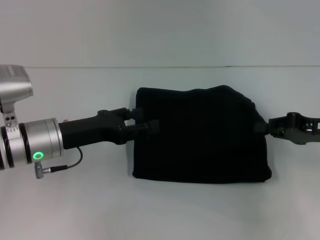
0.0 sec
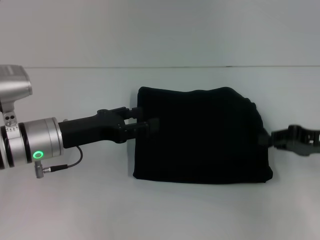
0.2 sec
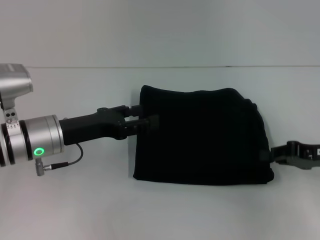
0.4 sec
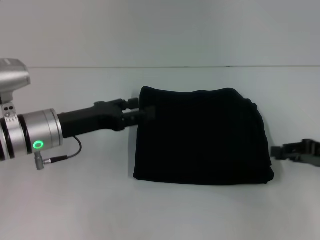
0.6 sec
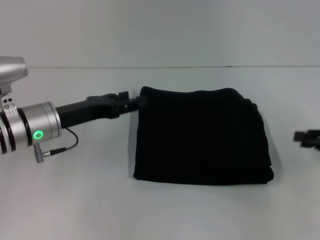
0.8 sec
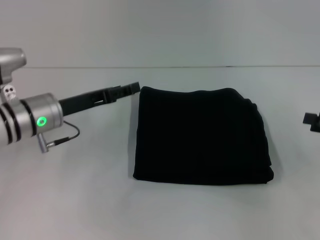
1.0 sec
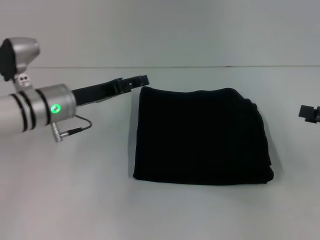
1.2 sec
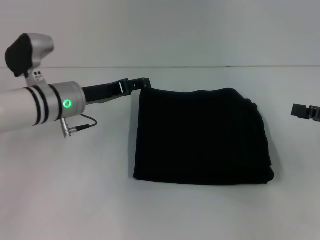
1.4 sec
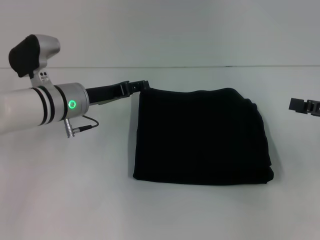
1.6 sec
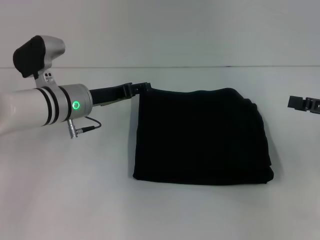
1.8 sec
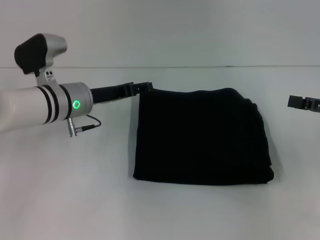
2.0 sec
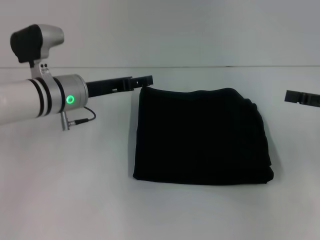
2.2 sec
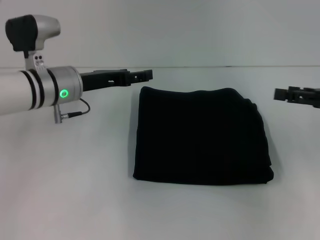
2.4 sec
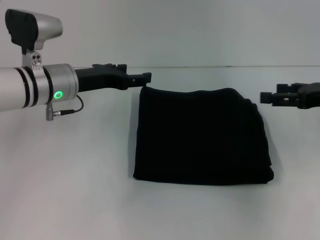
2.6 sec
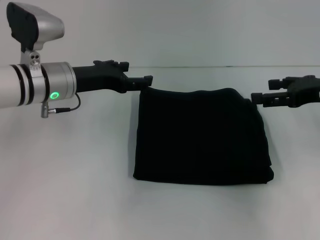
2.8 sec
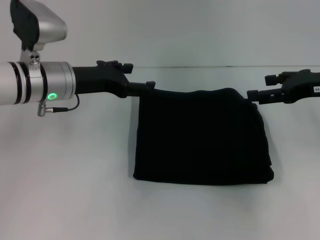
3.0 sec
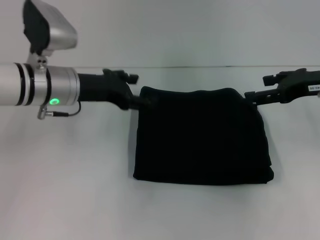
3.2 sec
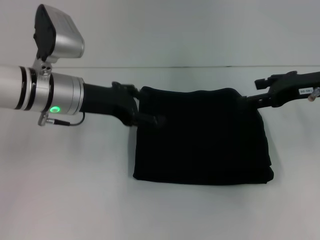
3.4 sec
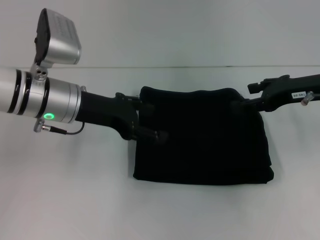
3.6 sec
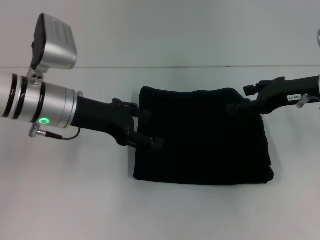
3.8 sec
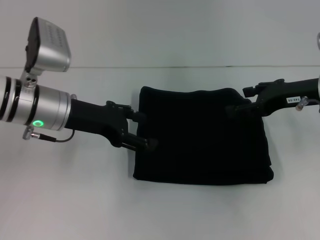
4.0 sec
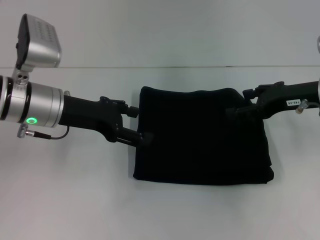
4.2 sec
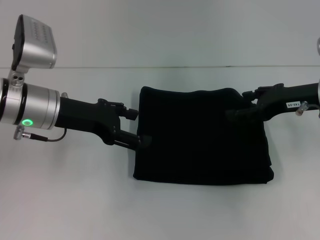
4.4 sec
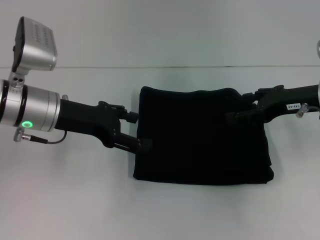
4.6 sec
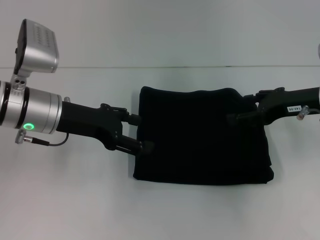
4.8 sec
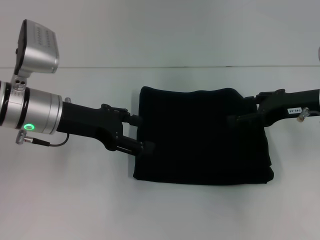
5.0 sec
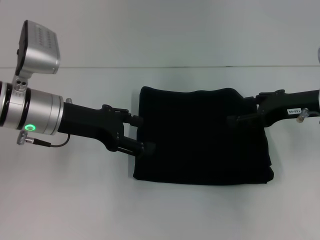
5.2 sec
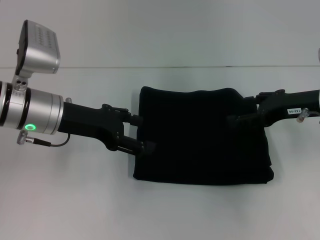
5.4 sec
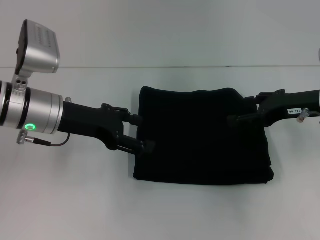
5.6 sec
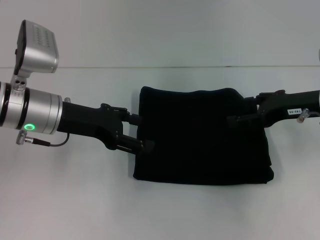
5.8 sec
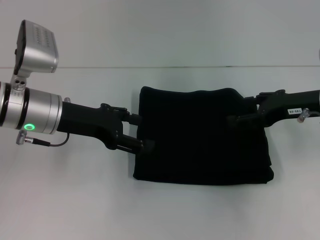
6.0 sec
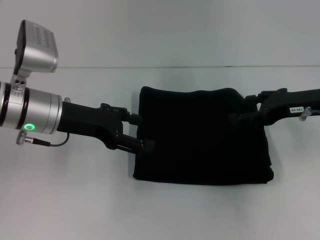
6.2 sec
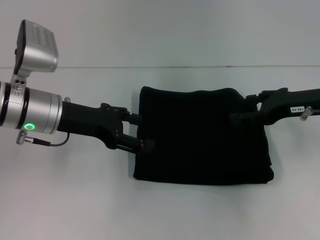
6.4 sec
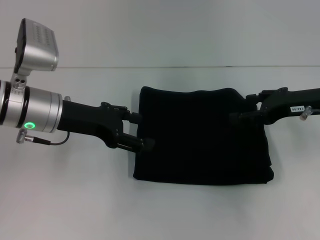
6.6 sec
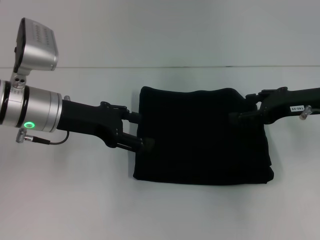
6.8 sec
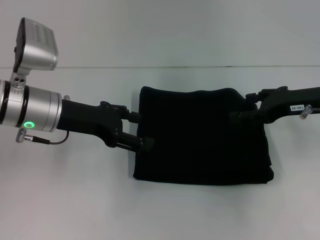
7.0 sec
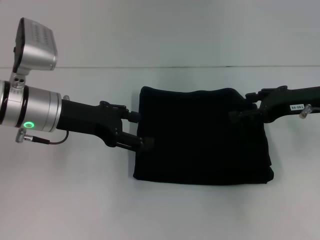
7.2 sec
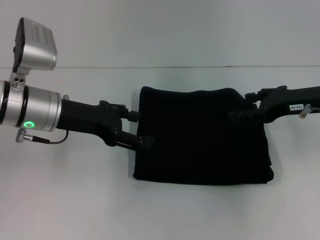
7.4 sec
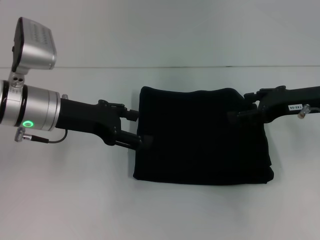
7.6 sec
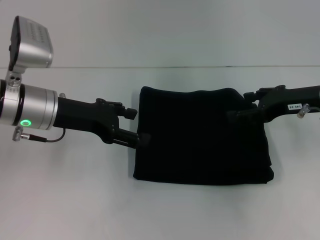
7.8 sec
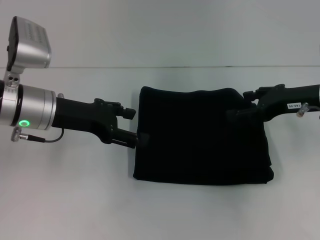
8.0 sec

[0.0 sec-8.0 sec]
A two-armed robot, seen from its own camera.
0.0 sec to 1.6 sec: The right gripper is displaced to the right by about 5 cm, and opens. Meanwhile the left gripper travels forward by roughly 10 cm.
1.6 sec to 3.2 sec: The right gripper shifts about 10 cm forward and to the left. The left gripper moves upward, some 5 cm.
3.2 sec to 4.8 sec: The grippers stay close to where they were, moving slightly.
4.8 sec to 8.0 sec: Both grippers stay put.
